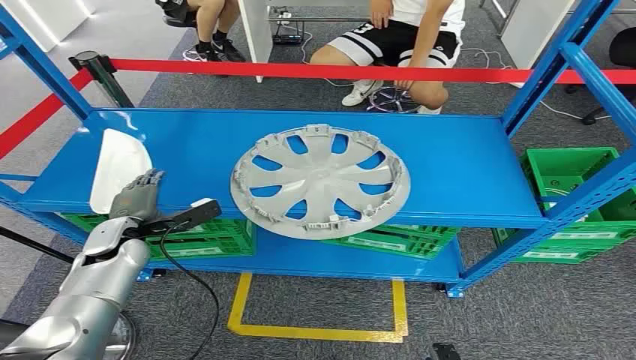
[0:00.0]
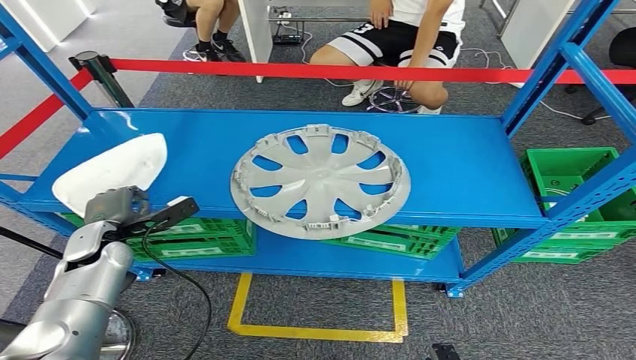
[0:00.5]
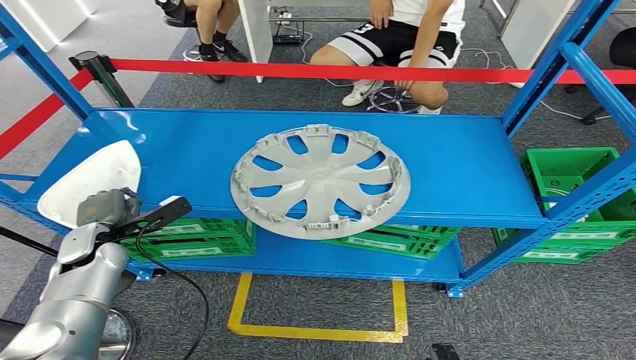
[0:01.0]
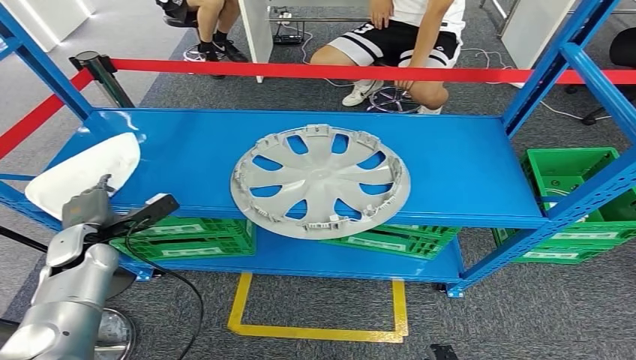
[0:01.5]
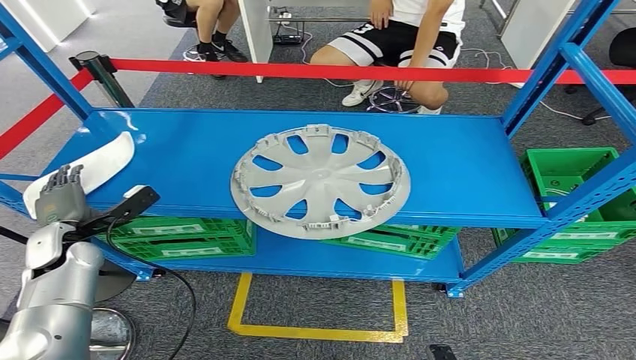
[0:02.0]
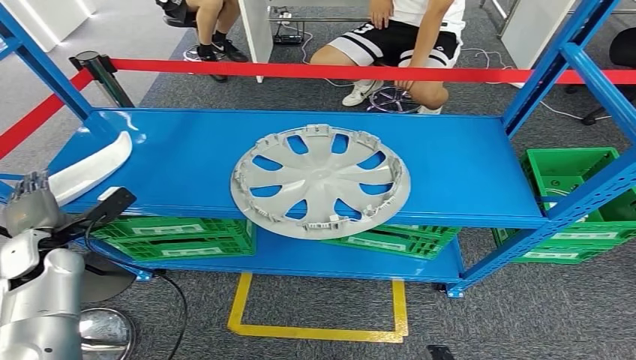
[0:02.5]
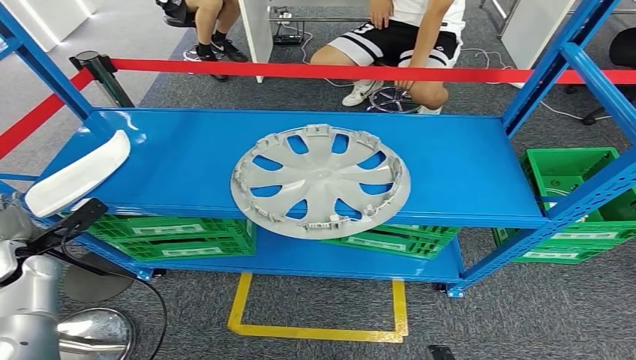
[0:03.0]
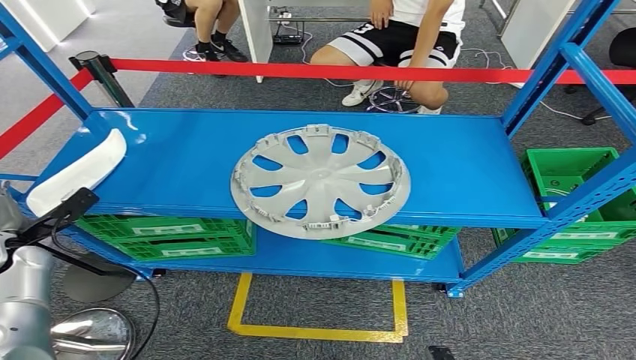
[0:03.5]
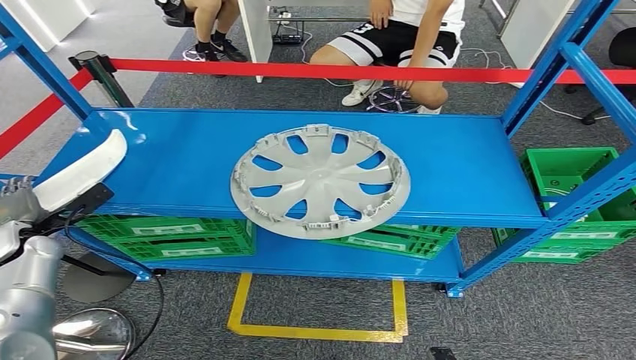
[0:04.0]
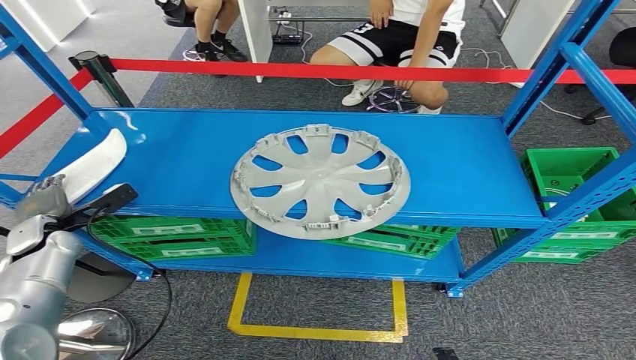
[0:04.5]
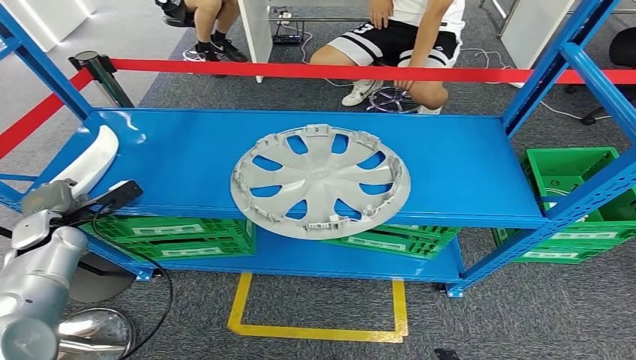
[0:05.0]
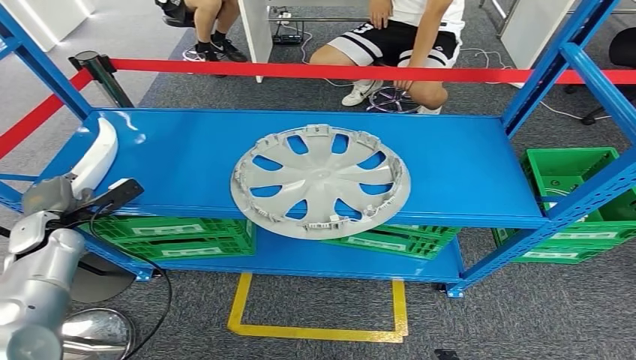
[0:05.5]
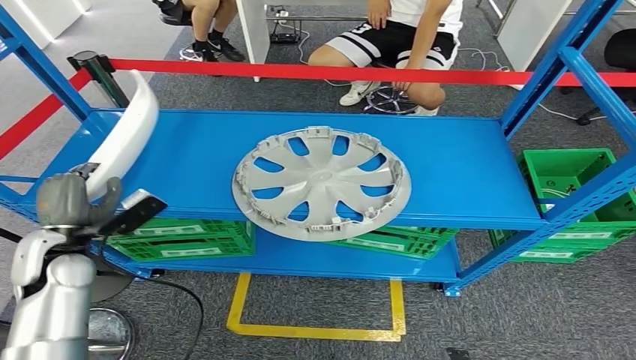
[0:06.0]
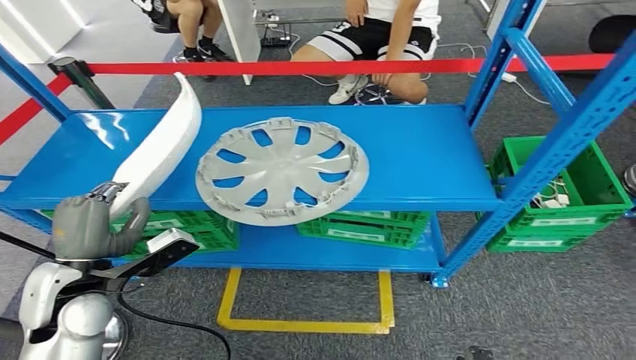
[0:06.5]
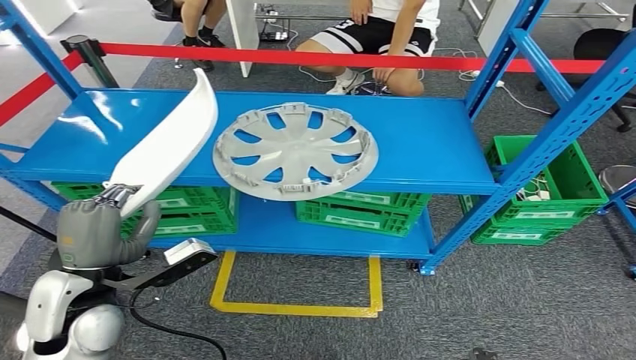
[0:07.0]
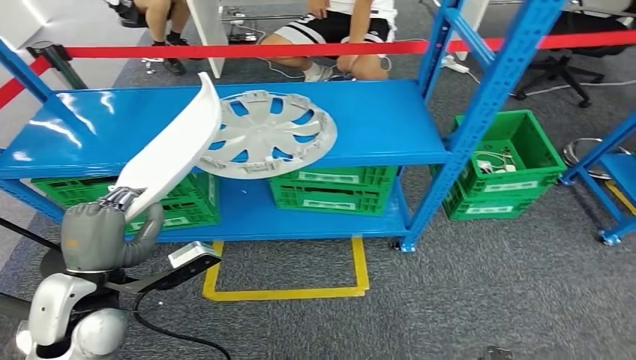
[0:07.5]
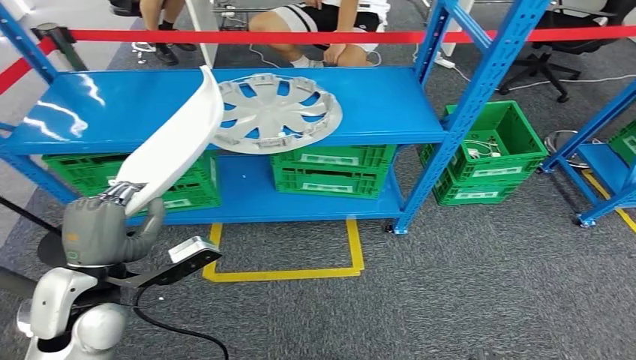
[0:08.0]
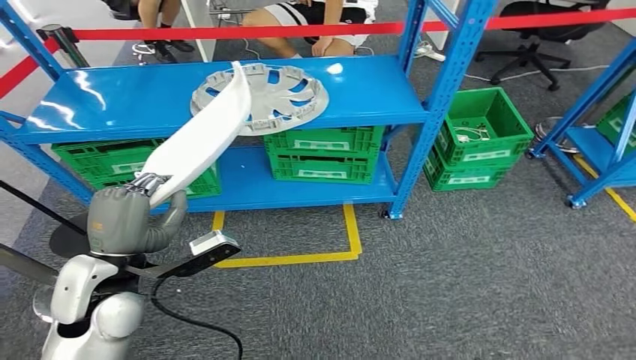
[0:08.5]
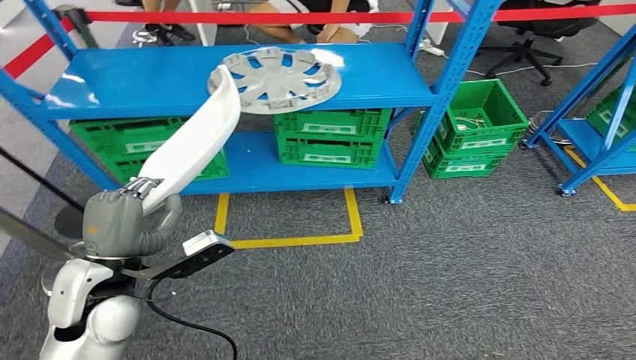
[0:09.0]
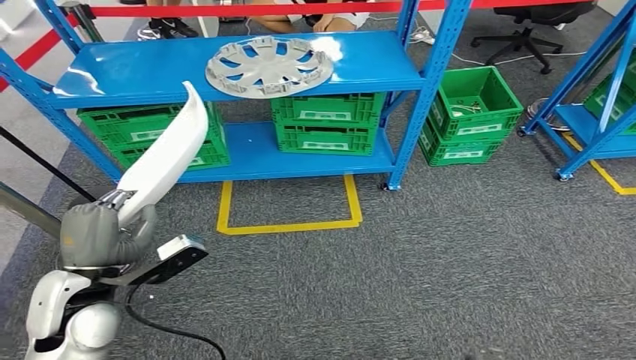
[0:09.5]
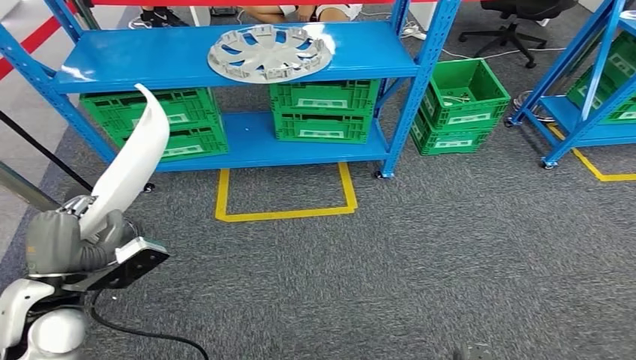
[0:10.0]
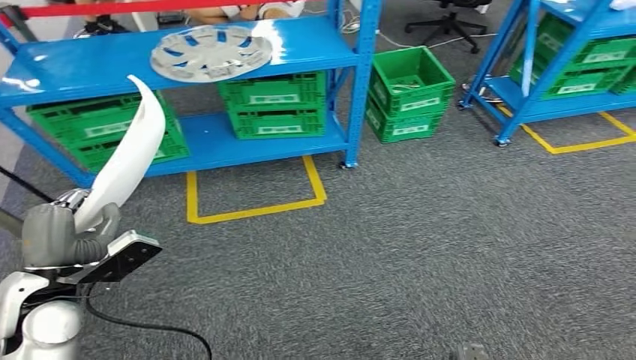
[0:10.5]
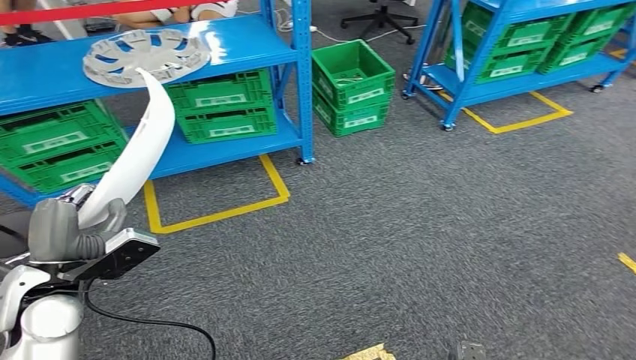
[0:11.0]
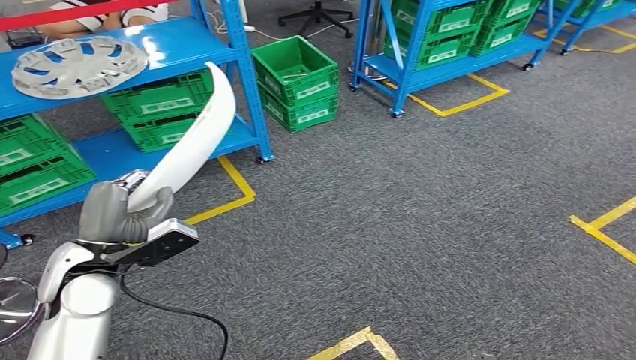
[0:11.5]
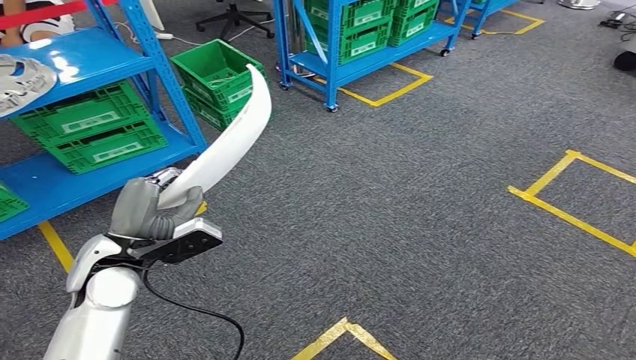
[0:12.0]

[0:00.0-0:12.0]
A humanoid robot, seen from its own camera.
Step, 0:00.0 to 0:08.0: Pick up the small parts from the shelf.
0:02.0 to 0:04.0: The left hand heads to the left, covering some 5 cm.
0:04.0 to 0:06.0: The left hand is displaced to the right and backward by approximately 10 cm.

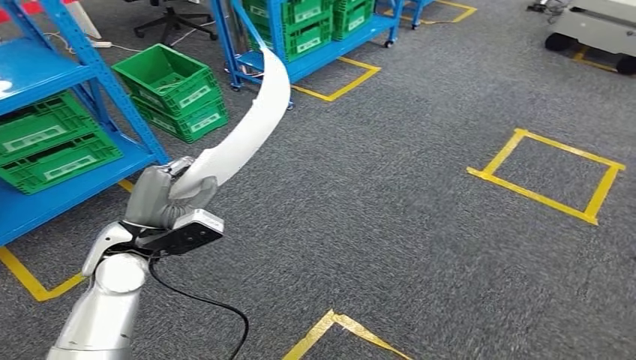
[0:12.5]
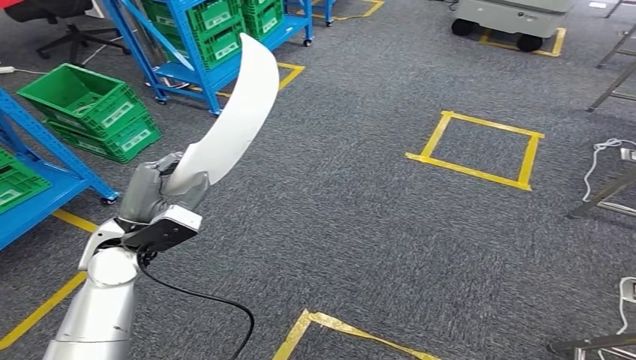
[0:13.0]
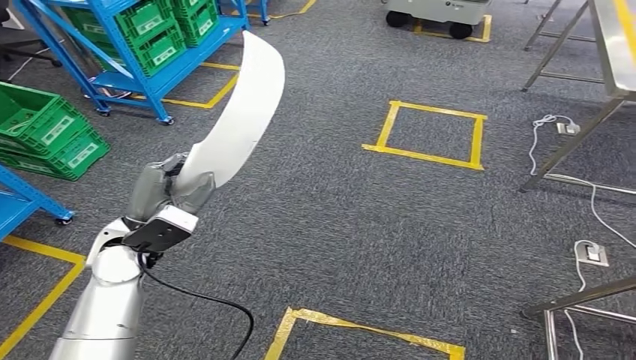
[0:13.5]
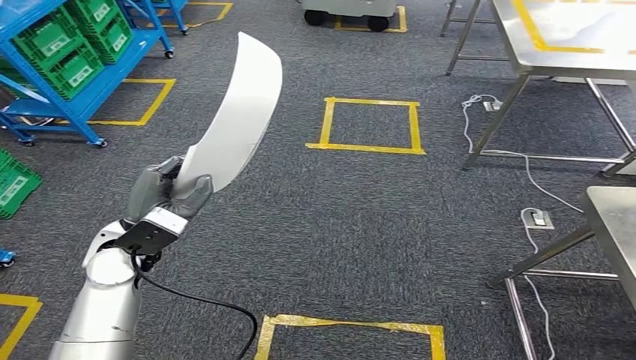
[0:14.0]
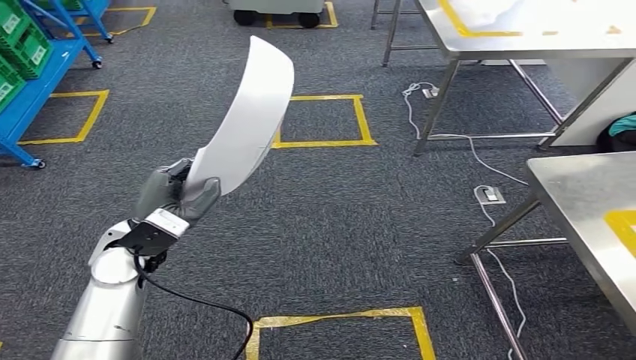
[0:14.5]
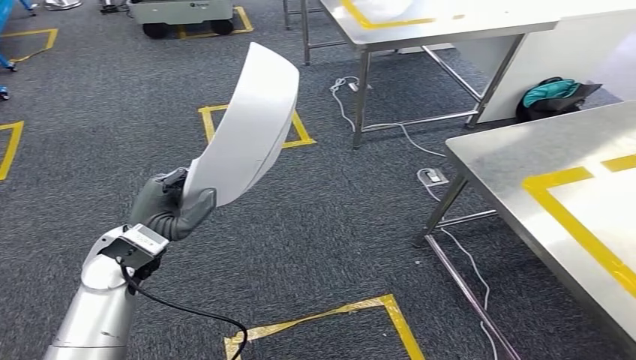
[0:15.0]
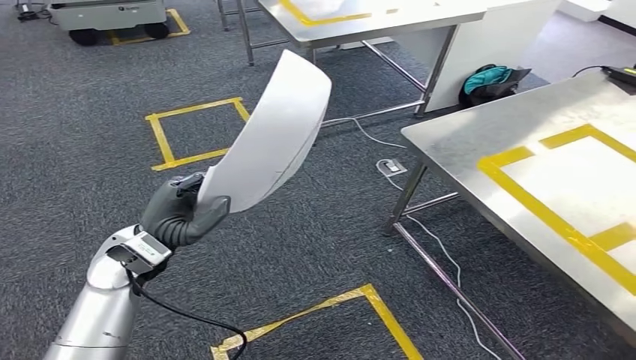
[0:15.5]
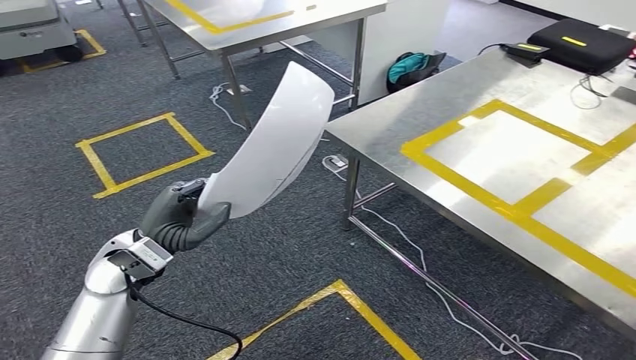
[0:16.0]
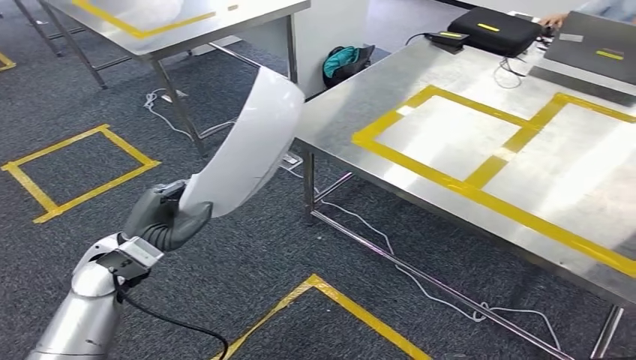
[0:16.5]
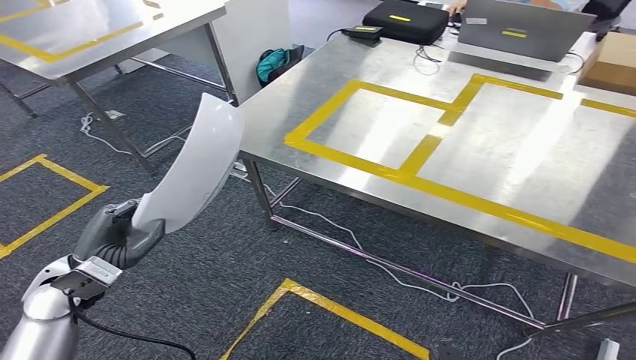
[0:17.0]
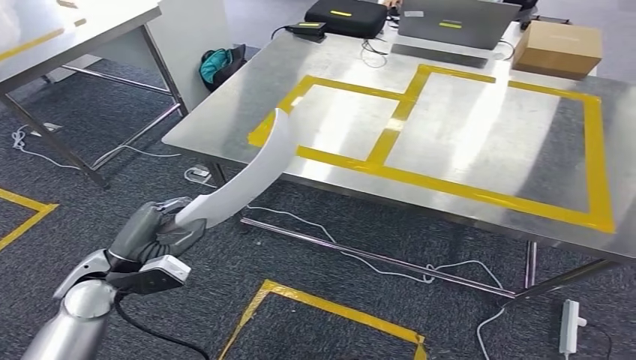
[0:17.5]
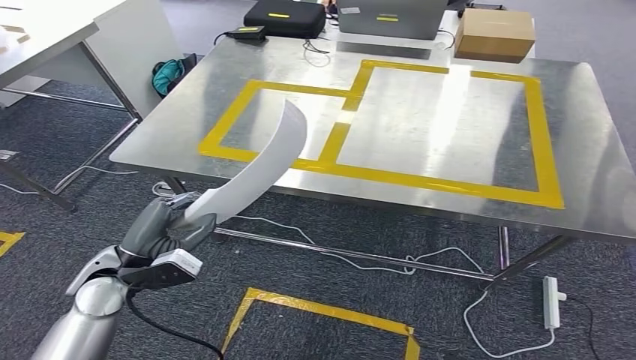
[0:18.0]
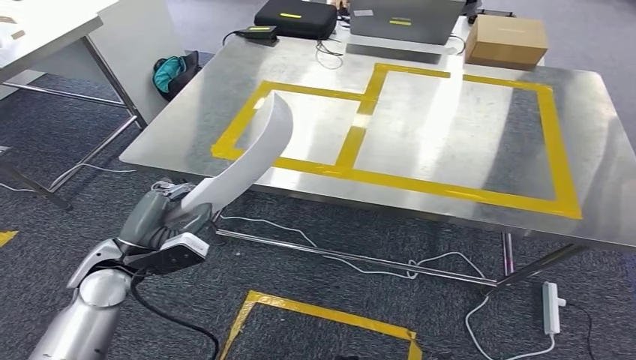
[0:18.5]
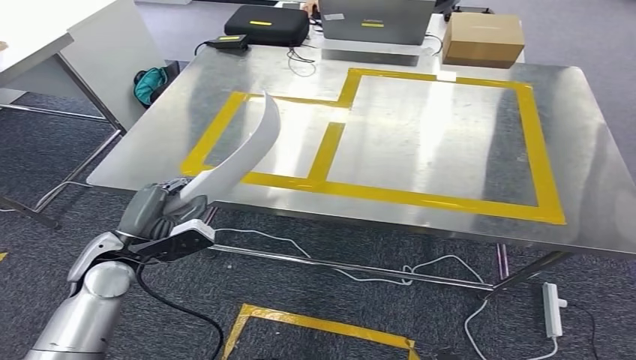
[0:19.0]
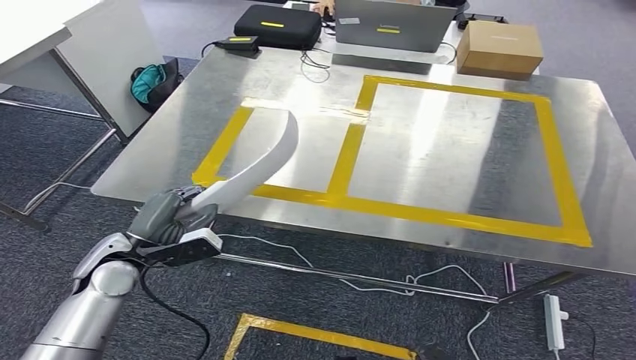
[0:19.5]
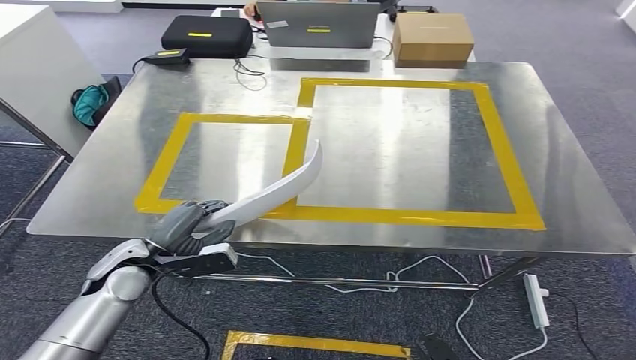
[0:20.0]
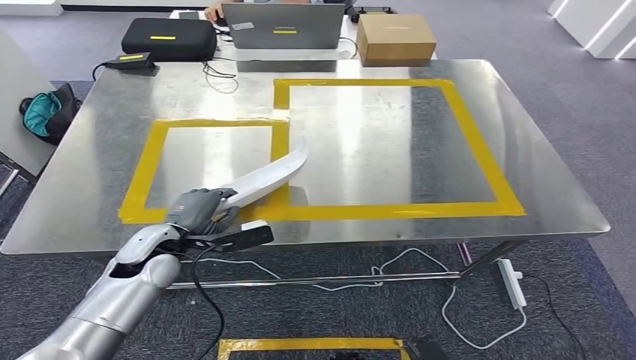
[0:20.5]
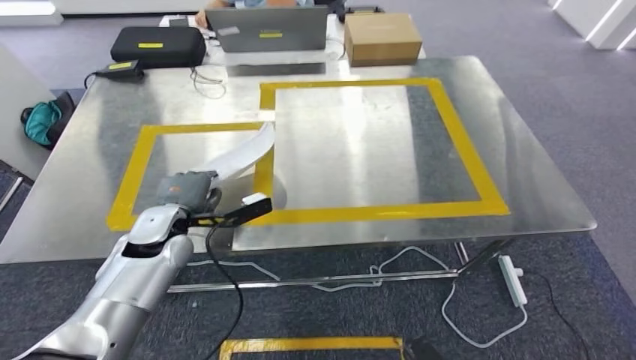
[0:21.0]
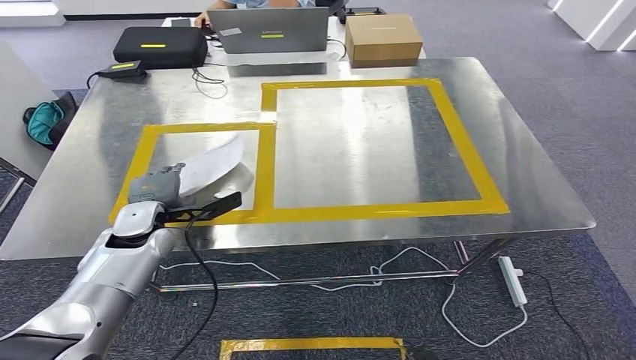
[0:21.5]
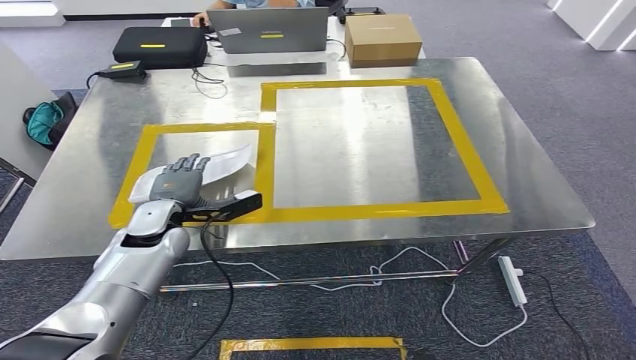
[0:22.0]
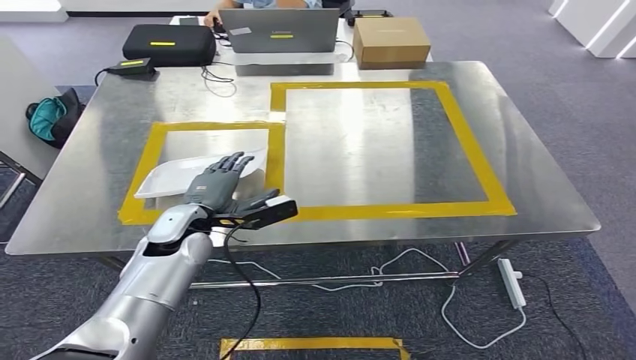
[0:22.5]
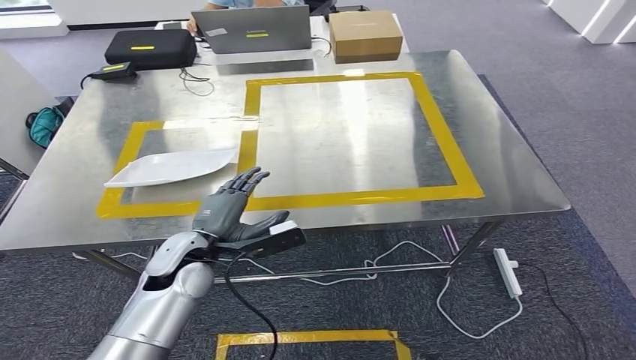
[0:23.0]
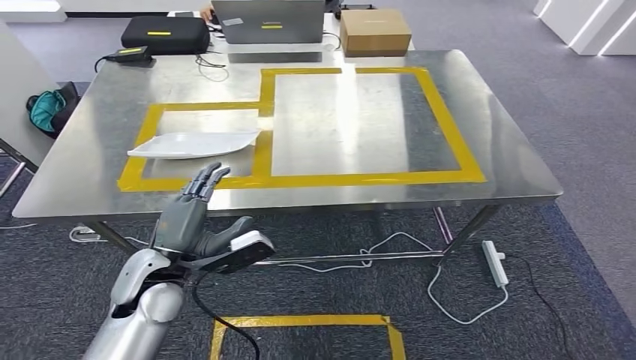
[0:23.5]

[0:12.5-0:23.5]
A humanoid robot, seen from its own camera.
Step, 0:12.5 to 0:18.5: Move the small parts to the workbench.
